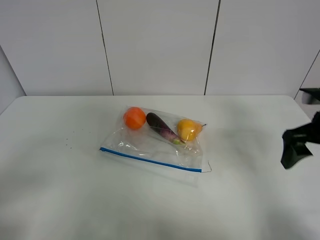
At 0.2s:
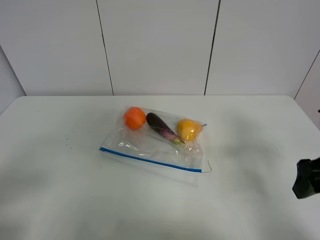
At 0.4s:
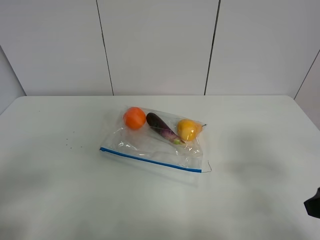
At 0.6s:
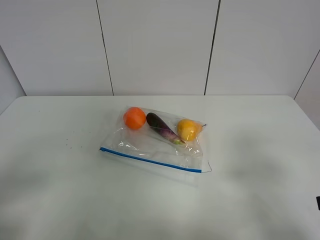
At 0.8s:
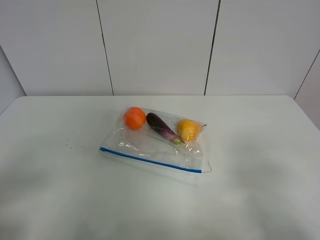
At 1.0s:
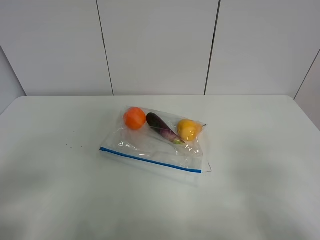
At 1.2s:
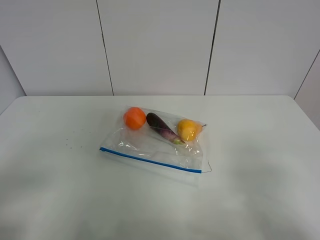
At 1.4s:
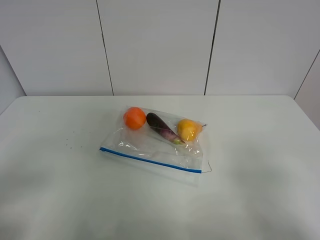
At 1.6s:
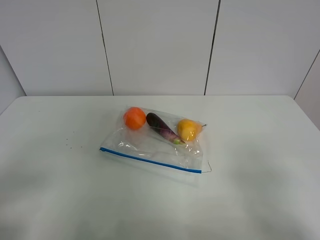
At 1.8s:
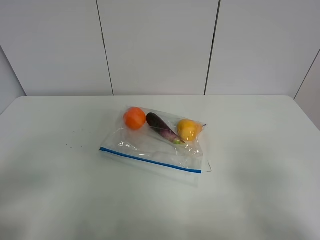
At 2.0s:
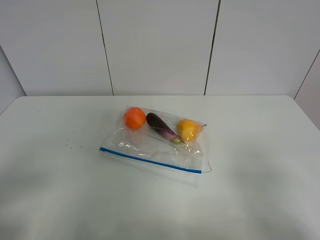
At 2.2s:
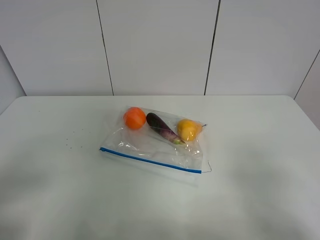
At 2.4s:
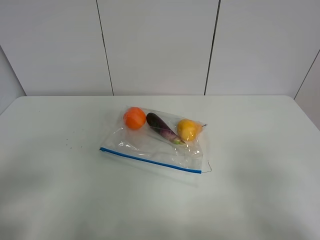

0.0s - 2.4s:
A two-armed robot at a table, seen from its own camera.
0.0s - 1.2s: The right gripper goes some 20 cm backward.

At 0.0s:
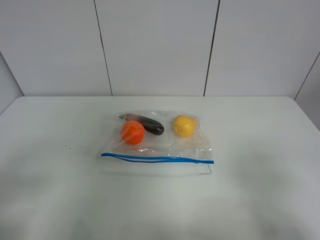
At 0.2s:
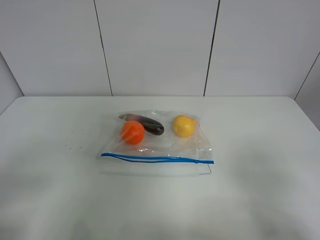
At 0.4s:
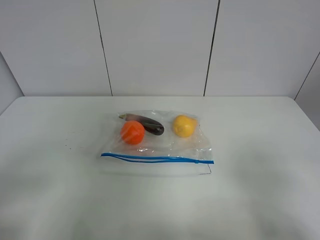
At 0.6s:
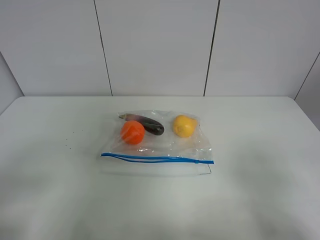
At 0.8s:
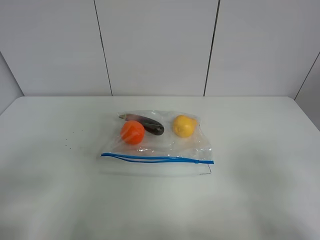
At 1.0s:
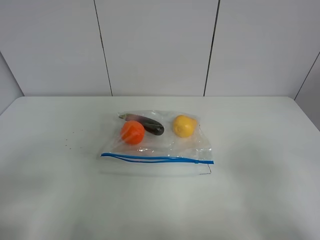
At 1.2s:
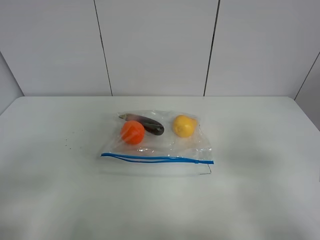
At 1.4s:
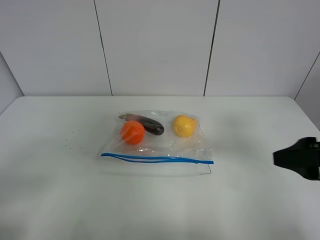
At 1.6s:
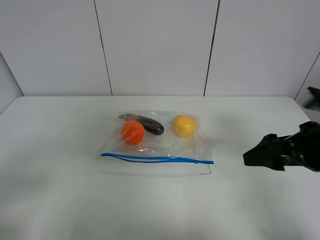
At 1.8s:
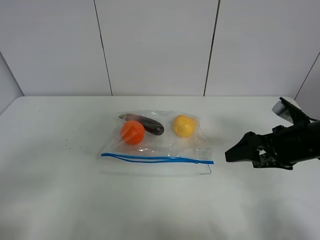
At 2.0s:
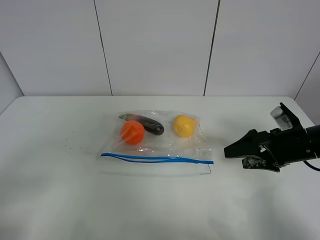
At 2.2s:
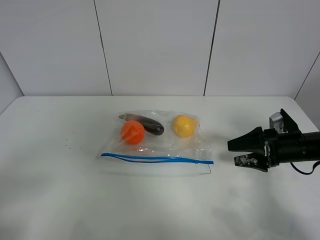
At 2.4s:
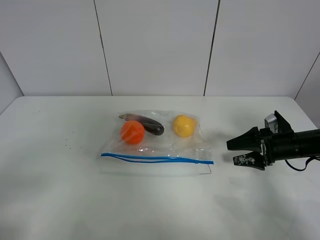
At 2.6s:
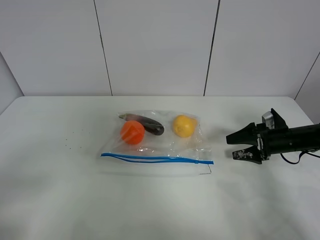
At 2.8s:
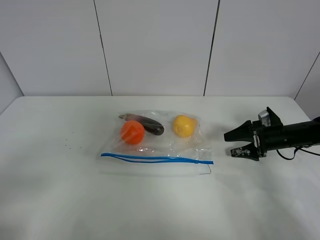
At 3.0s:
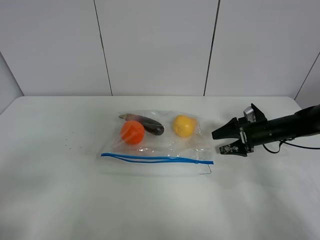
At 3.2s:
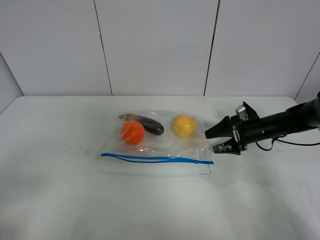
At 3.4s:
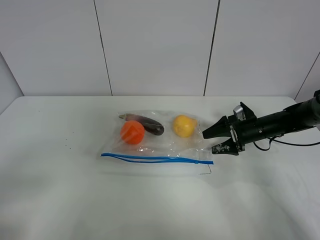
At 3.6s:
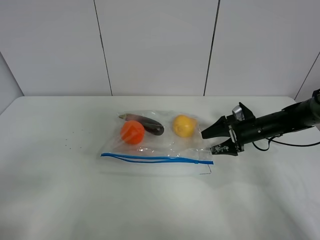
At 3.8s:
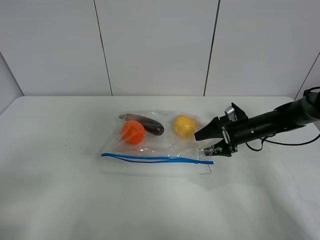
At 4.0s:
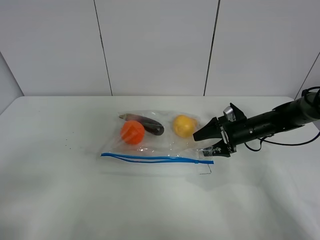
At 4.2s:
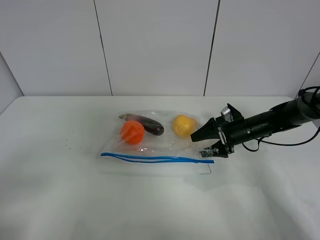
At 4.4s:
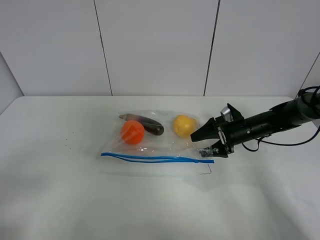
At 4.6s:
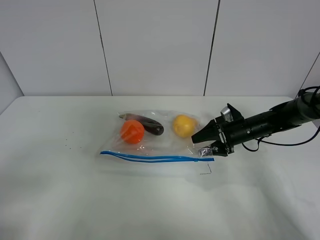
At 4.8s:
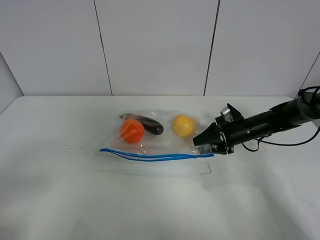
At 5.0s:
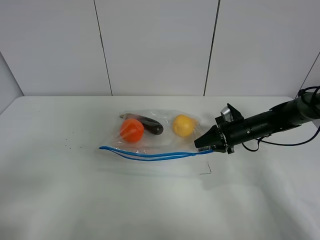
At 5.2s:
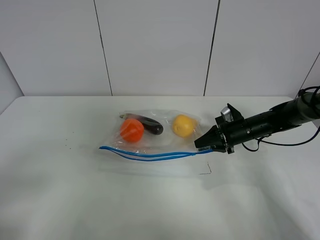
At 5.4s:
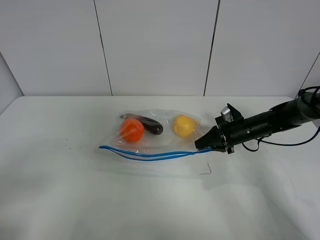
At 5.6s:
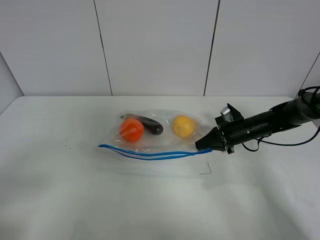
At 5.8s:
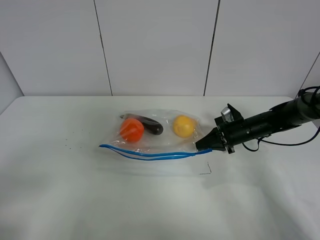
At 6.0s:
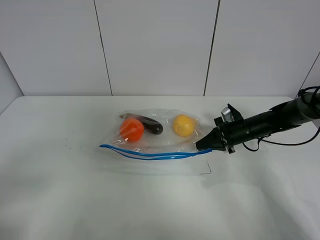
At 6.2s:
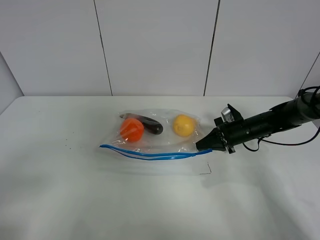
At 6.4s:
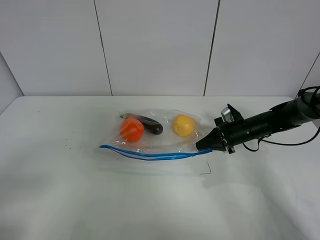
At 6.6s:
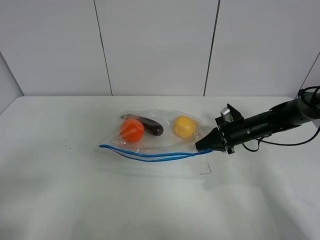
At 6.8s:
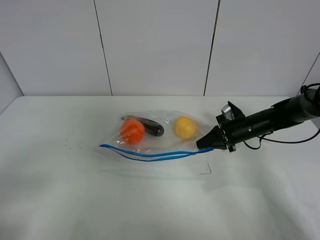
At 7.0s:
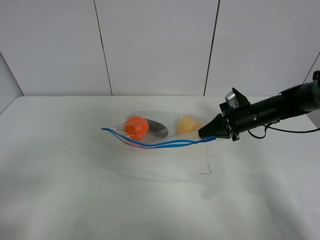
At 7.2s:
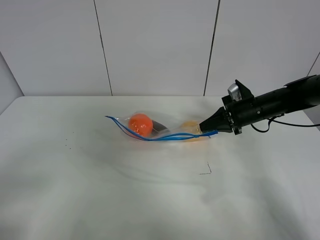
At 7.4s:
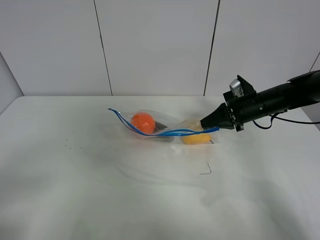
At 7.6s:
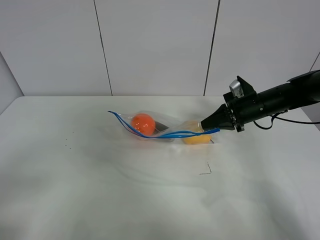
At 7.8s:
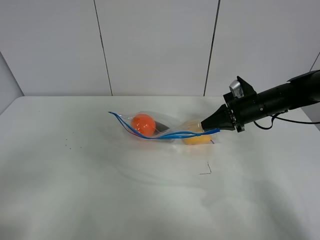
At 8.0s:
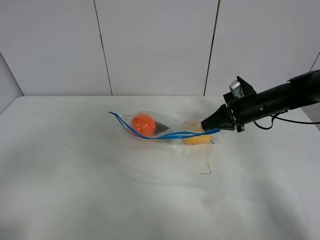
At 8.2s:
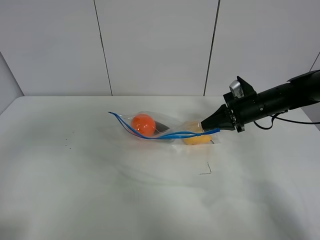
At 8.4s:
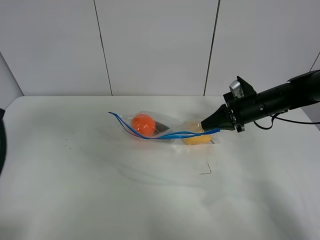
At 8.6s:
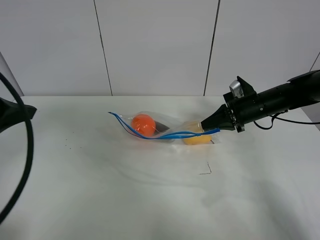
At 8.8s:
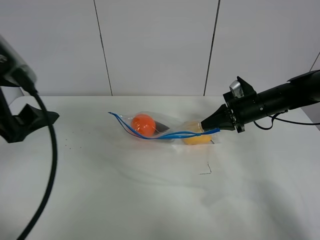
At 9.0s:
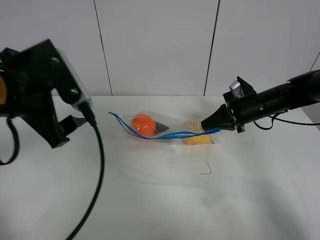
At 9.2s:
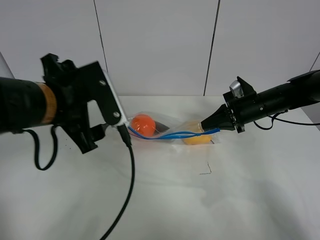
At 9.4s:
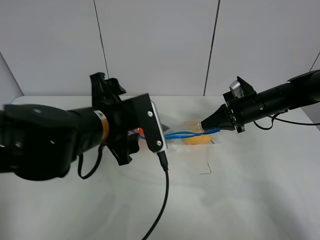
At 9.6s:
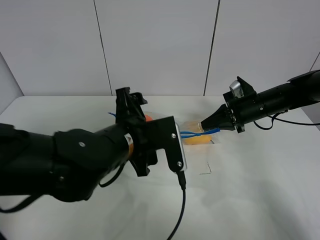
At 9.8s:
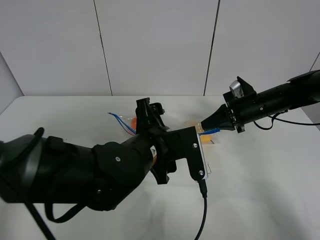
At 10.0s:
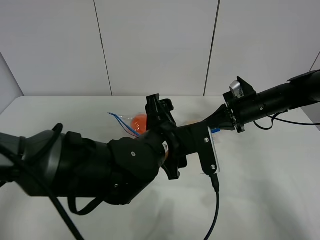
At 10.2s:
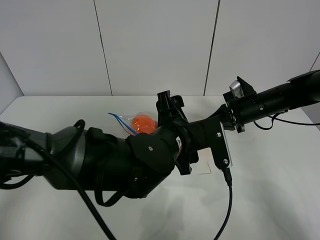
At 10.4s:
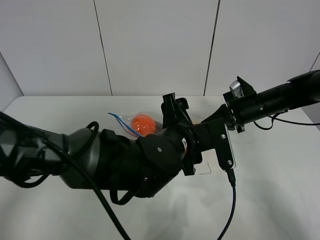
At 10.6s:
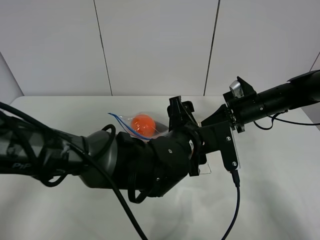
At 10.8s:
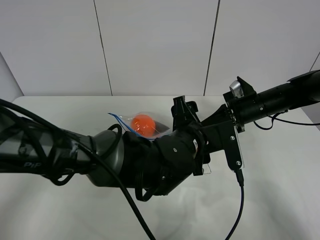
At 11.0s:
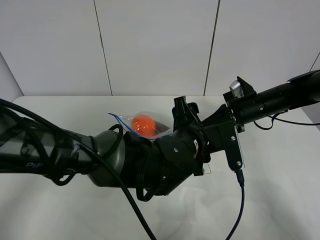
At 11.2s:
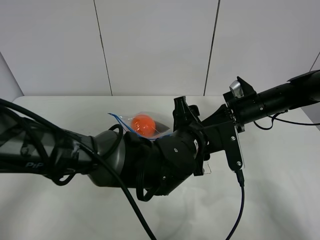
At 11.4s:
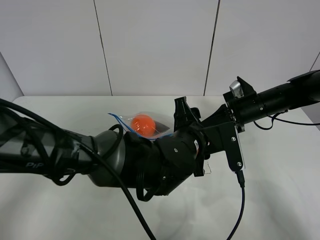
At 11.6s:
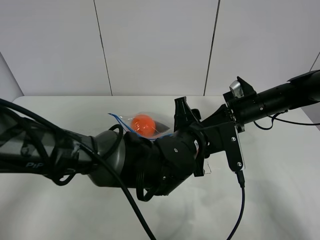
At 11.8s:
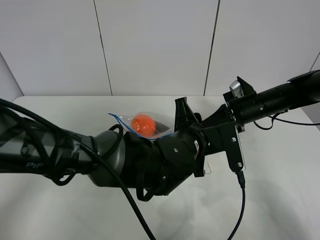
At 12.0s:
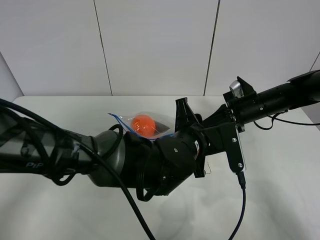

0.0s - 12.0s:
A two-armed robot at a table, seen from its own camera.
Step, 0.0s - 5.6s: Grasp the fruit bag with right gripper.
Step, 5.8s - 7.6s: Lift the fruit bag with your right gripper.
0.0s - 1.6s: The right gripper goes approximately 20 cm forward.
1.6s - 3.0s: The right gripper shifts about 25 cm forward and downward.
3.0s - 4.4s: The right gripper is displaced to the left by approximately 5 cm.
4.4s - 6.0s: The right gripper closes its fingers.
6.0s - 7.6s: The right gripper heads upward, covering approximately 10 cm.
7.6s - 9.0s: The left gripper is displaced forward and to the right by approximately 25 cm.
9.0s - 10.4s: The left gripper goes roughly 25 cm to the right and downward.
10.4s - 12.0s: The left gripper closes up.

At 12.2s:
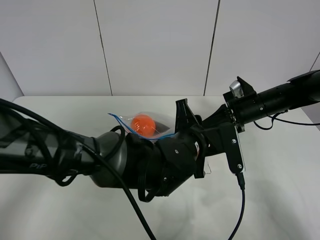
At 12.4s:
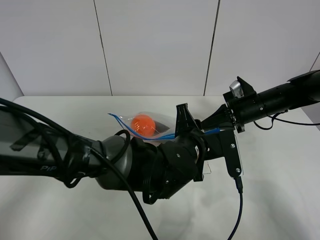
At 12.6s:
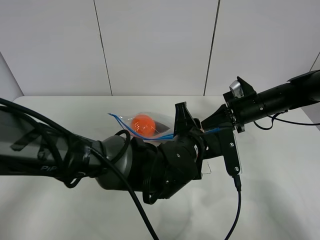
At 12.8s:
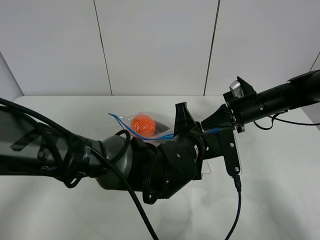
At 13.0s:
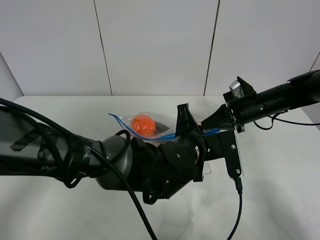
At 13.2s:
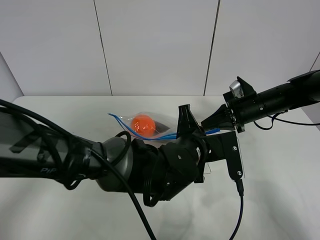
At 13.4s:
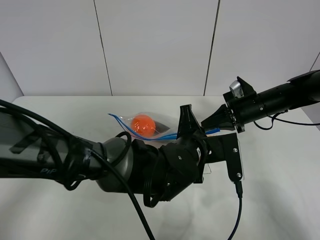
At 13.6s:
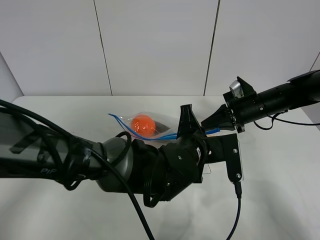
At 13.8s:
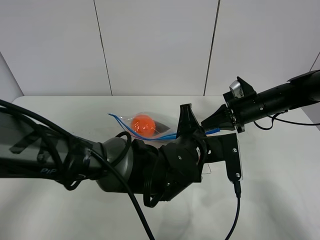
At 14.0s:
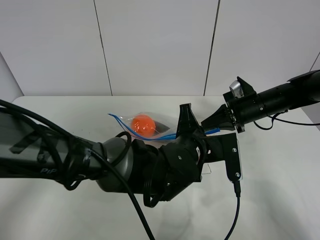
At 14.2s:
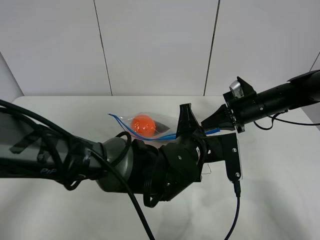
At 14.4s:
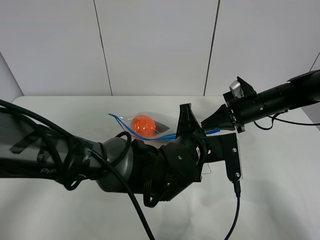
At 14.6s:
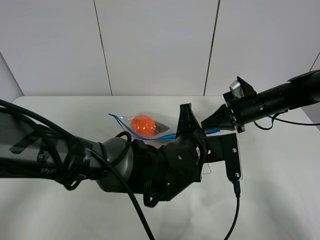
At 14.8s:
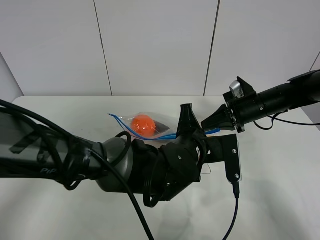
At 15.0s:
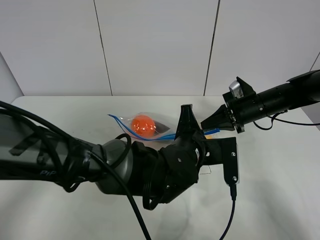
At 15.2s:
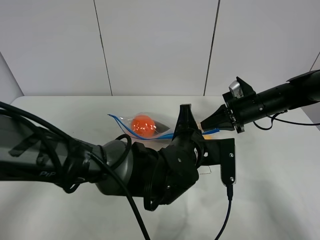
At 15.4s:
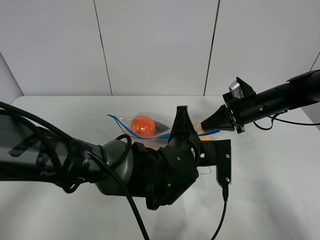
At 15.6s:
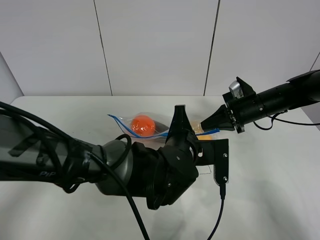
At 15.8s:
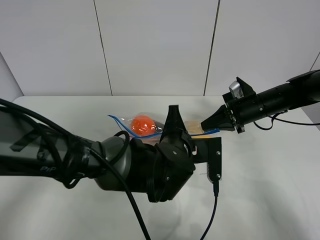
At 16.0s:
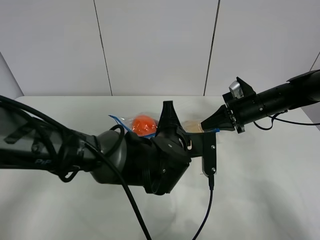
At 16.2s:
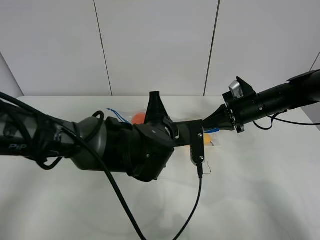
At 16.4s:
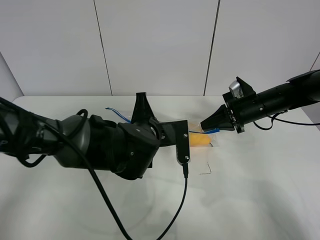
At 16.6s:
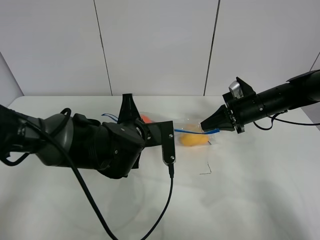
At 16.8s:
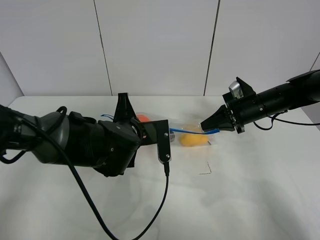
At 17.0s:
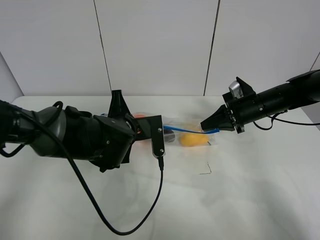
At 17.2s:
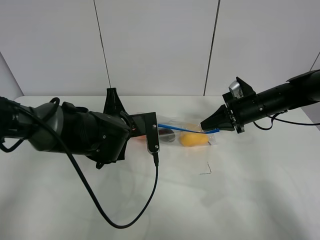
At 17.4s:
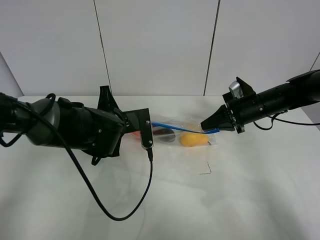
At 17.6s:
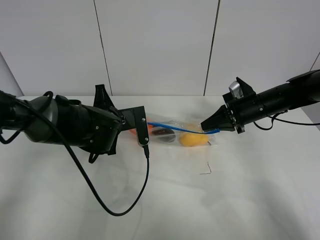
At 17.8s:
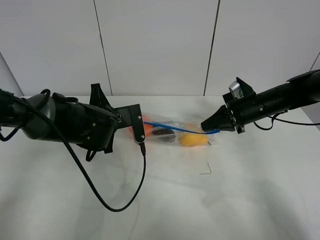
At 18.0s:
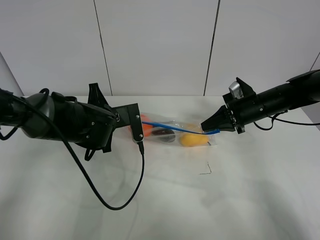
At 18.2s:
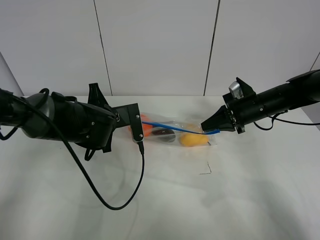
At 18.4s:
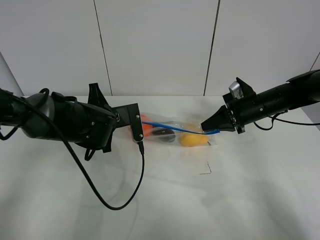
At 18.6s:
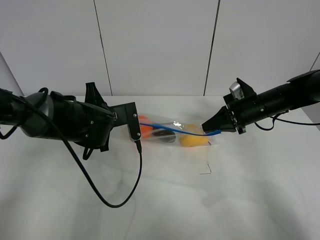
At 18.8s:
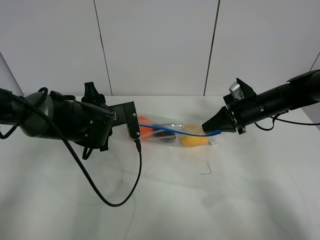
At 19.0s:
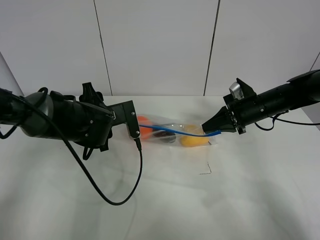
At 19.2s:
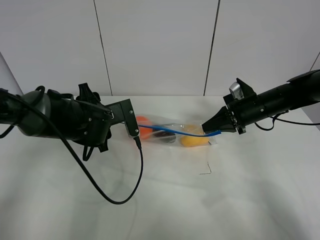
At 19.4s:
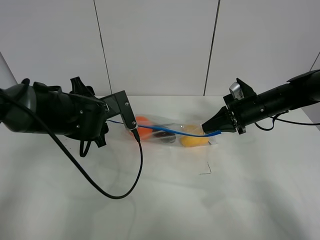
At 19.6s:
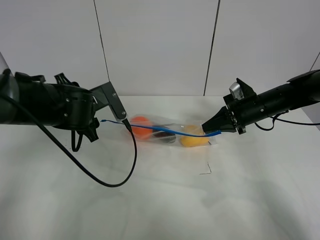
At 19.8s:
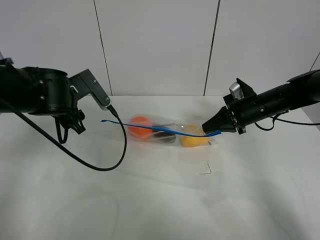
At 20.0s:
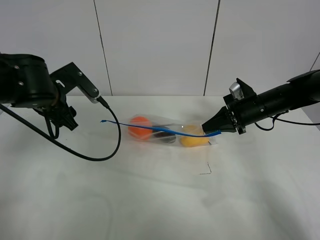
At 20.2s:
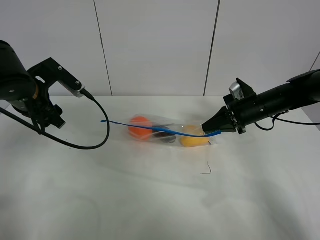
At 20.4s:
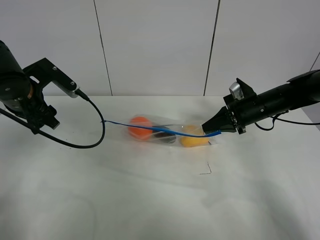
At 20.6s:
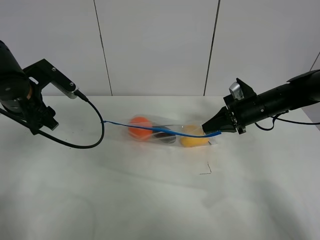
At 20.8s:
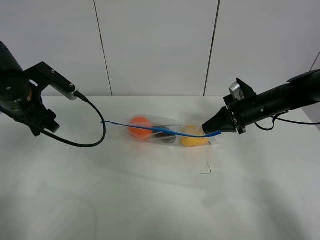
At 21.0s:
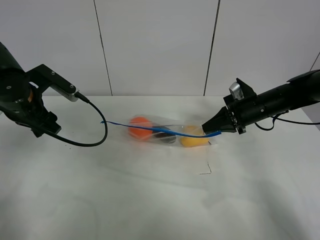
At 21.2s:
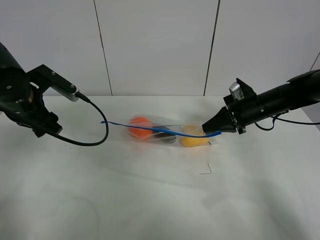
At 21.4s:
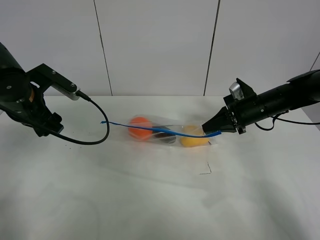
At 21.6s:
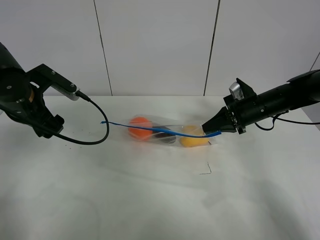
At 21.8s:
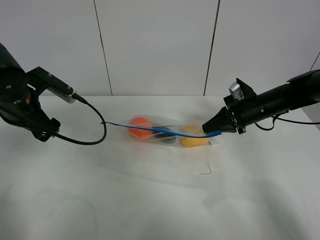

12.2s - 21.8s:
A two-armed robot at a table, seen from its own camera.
Step, 12.2s - 19.0s: Pull the fruit bag with left gripper.
12.2s - 13.8s: Both grippers stay about where they are.
13.8s - 15.4s: The grippers stay close to where they were, moving slightly.
15.4s - 17.0s: The left gripper goes approximately 10 cm to the left.
17.0s - 18.6s: The left gripper shifts by some 5 cm.
18.6s - 20.2s: The left gripper heads to the left and upward, covering roughly 15 cm, and opens its fingers.
20.2s - 21.8s: There are only small adjustments of the grippers.
